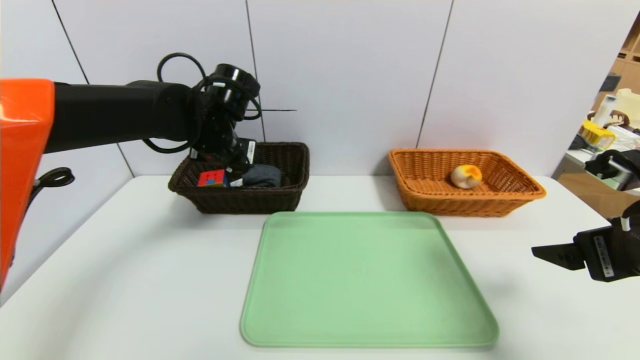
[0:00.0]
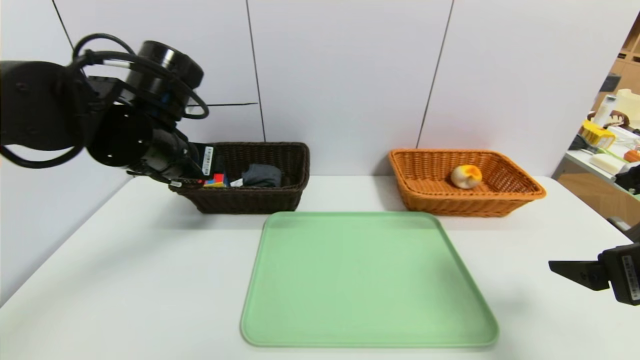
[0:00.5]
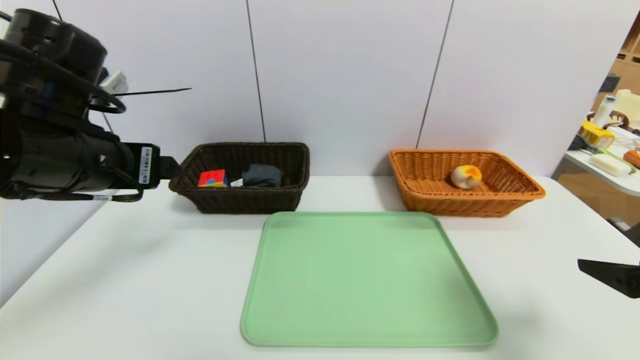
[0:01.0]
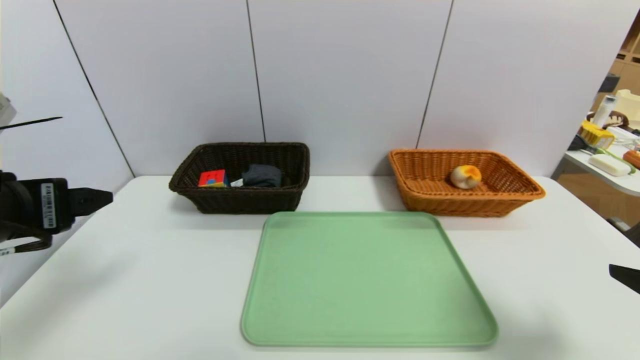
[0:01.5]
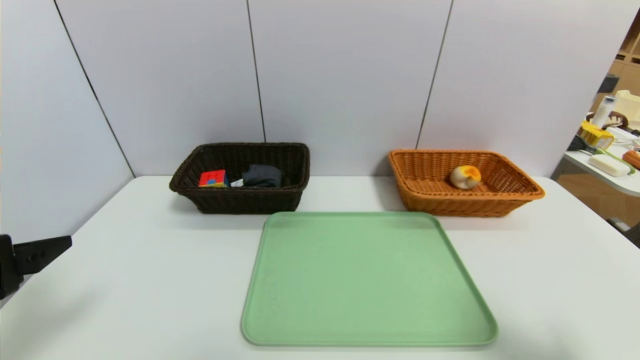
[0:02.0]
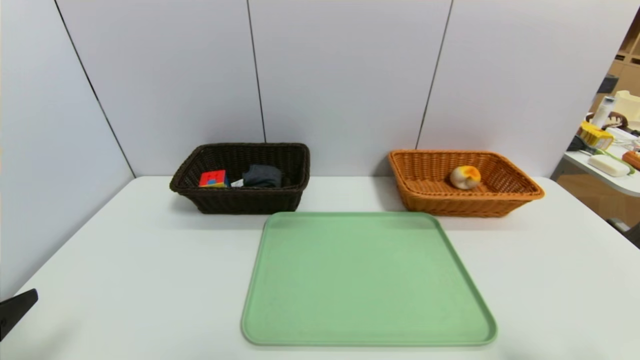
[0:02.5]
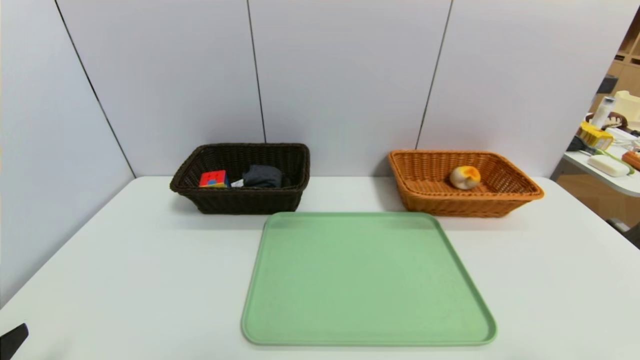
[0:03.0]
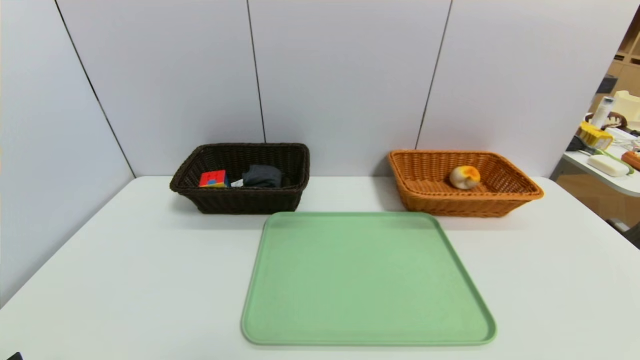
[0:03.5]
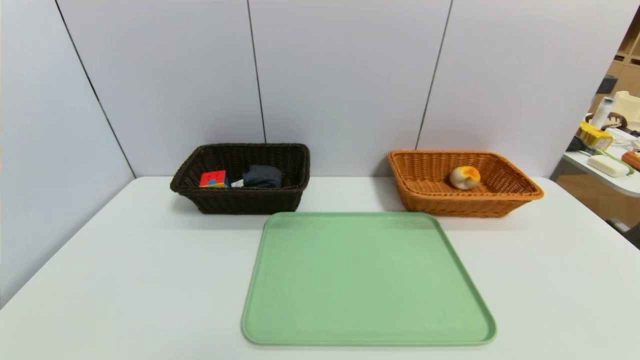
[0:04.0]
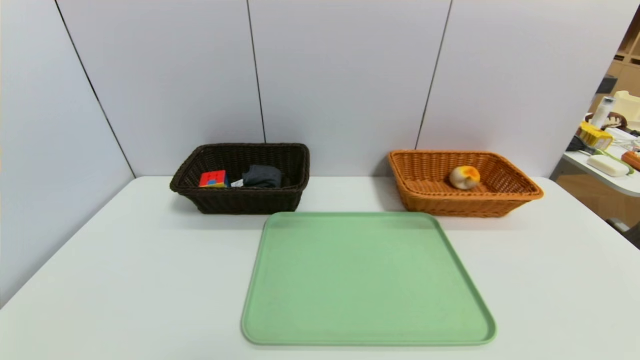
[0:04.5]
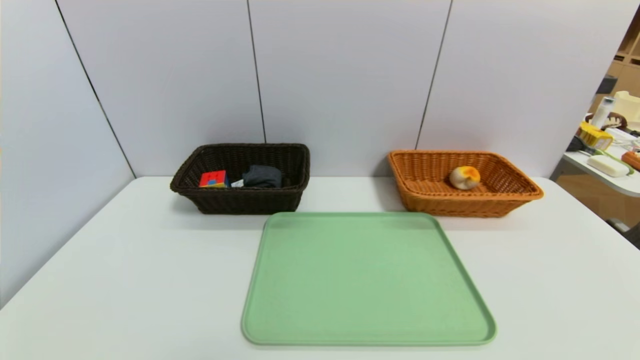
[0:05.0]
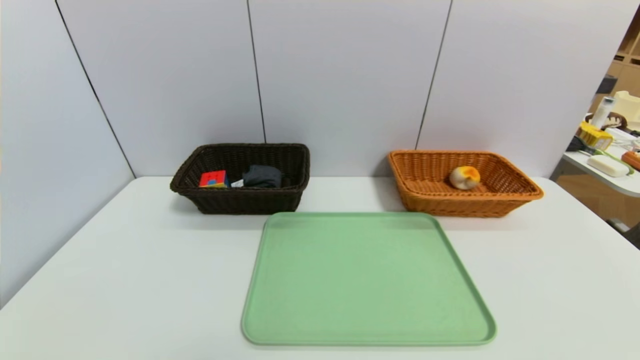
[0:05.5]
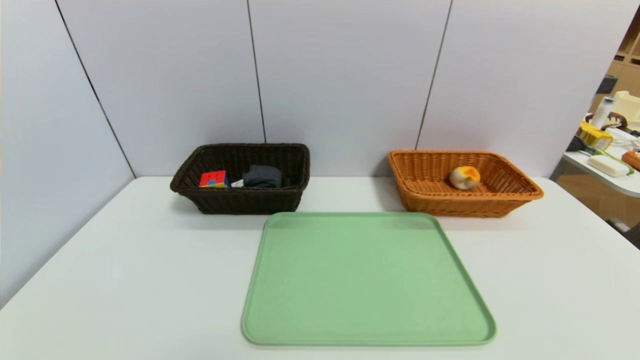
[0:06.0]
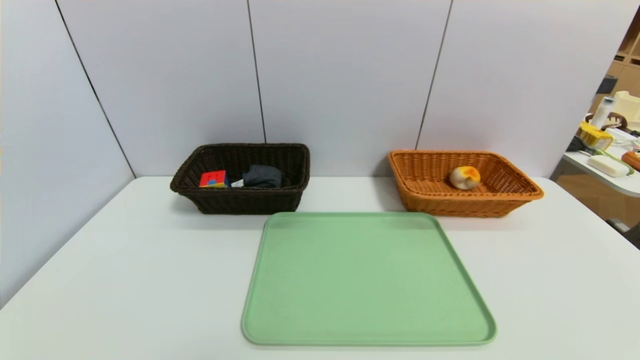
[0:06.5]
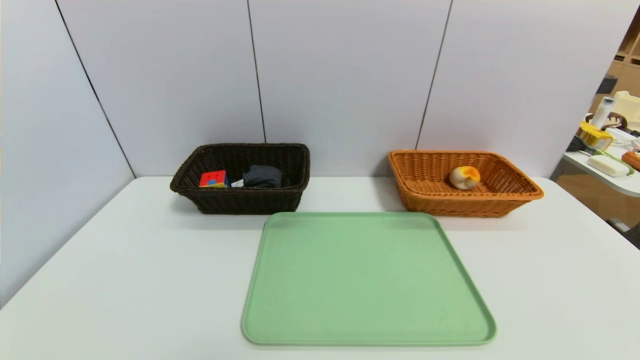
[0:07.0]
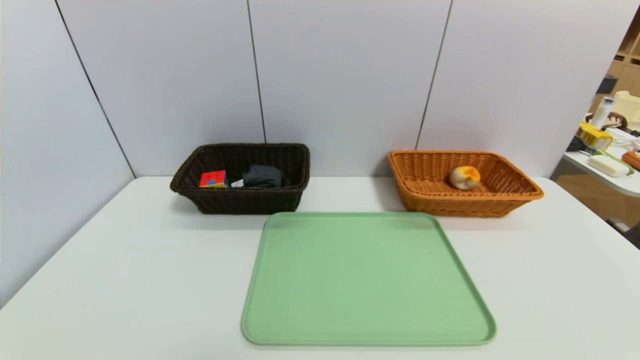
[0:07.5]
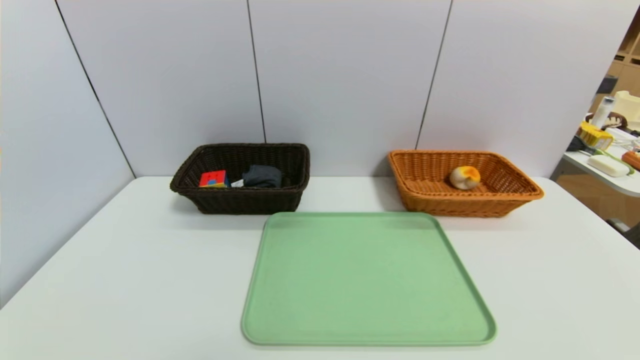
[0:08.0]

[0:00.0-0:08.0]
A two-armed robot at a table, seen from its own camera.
Task of the whole recording: place the food in the right basket with the right gripper, and place the non food items in the left basket with the left gripper.
0:00.0 to 0:02.0: The right gripper heads backward, covering about 10 cm, while the left gripper heads backward and to the left, covering some 30 cm.
0:02.0 to 0:04.0: Both grippers move backward and downward, roughly 15 cm.

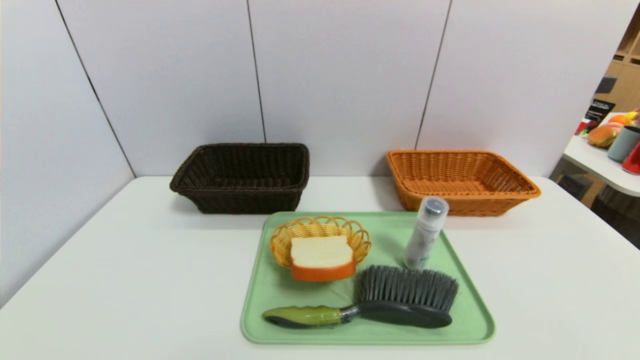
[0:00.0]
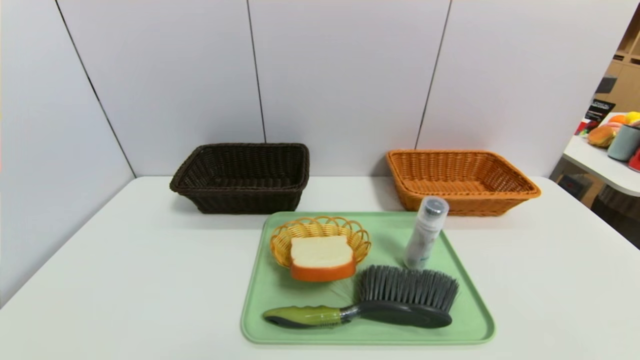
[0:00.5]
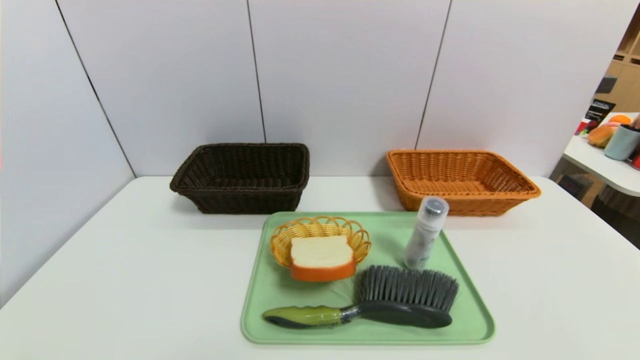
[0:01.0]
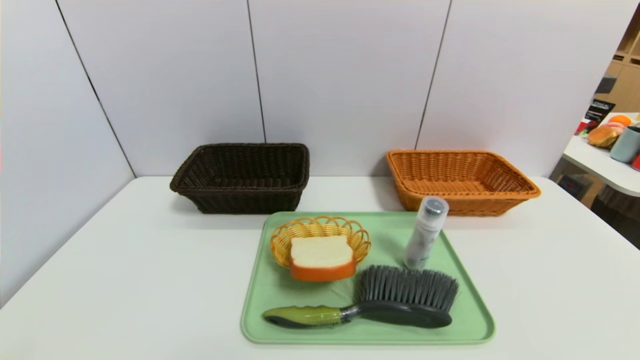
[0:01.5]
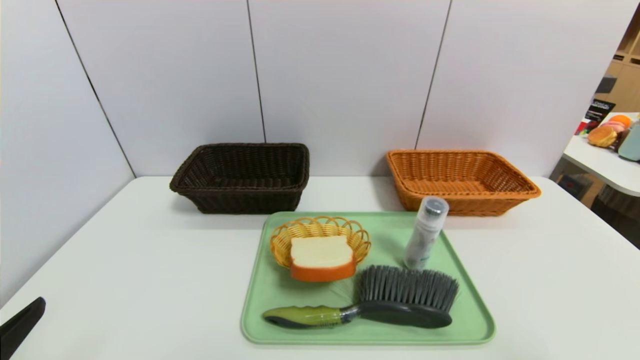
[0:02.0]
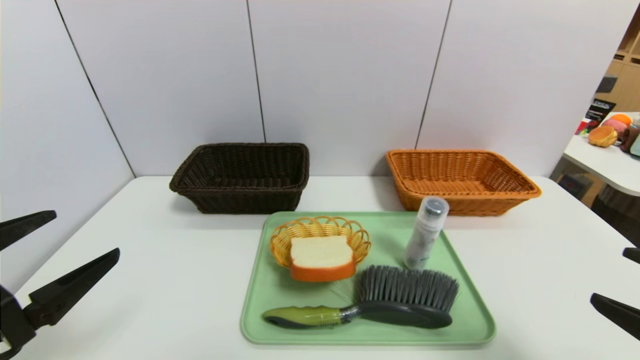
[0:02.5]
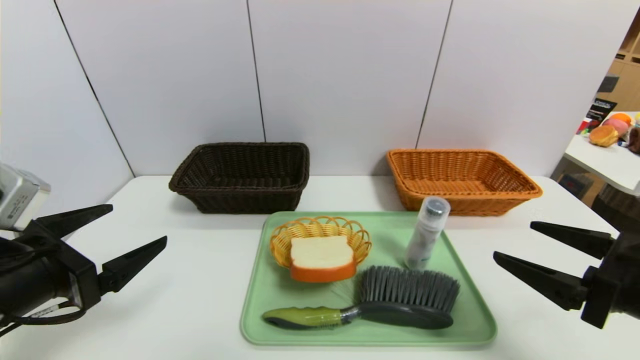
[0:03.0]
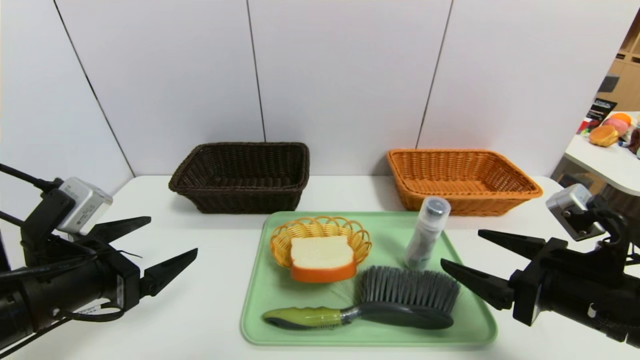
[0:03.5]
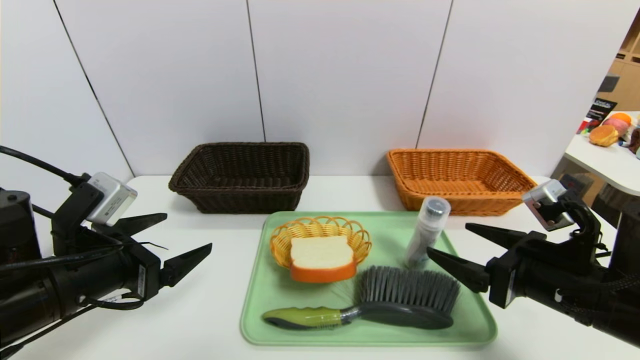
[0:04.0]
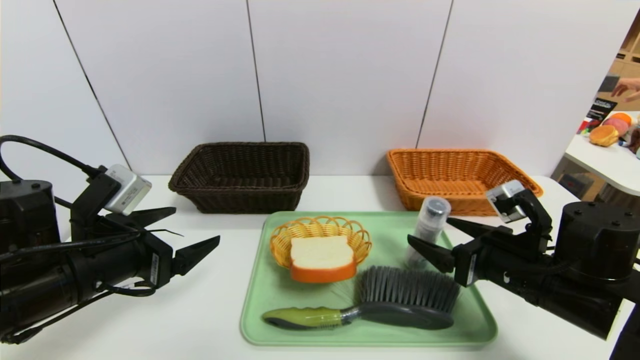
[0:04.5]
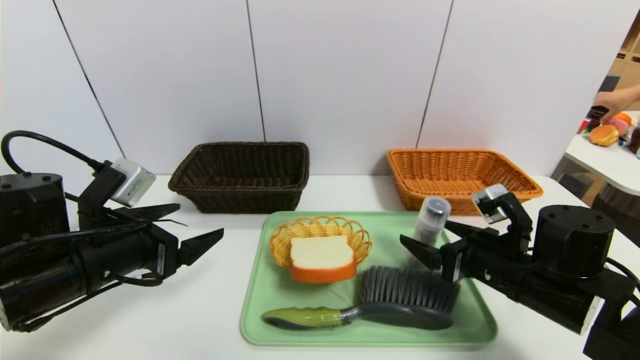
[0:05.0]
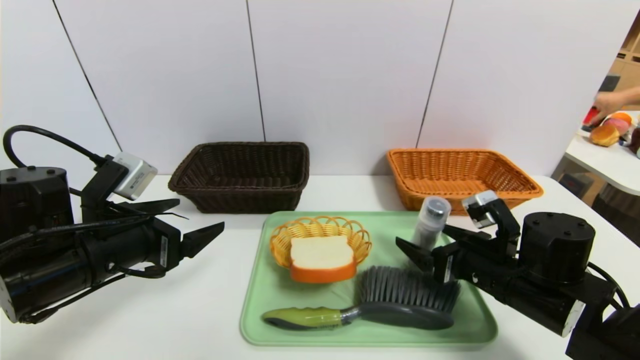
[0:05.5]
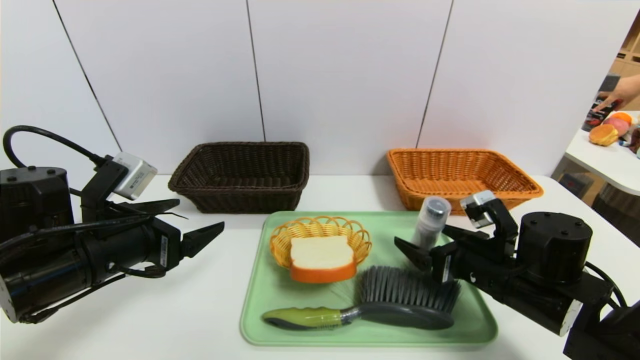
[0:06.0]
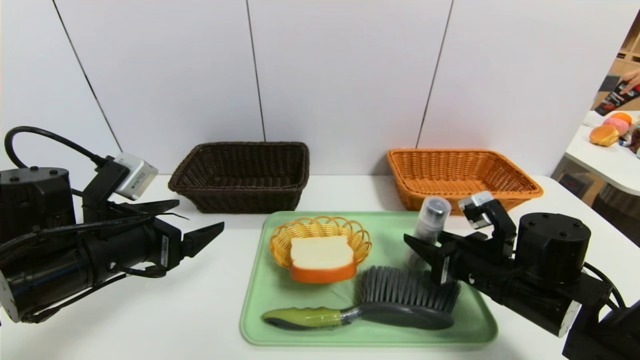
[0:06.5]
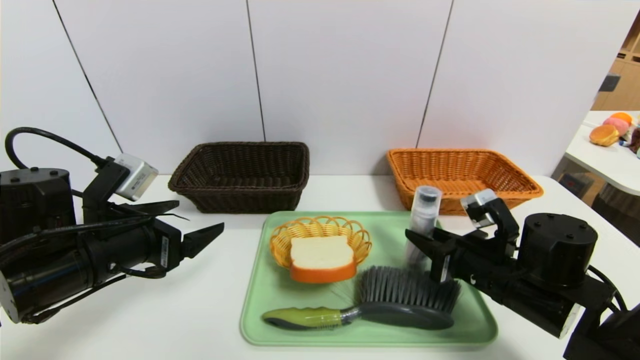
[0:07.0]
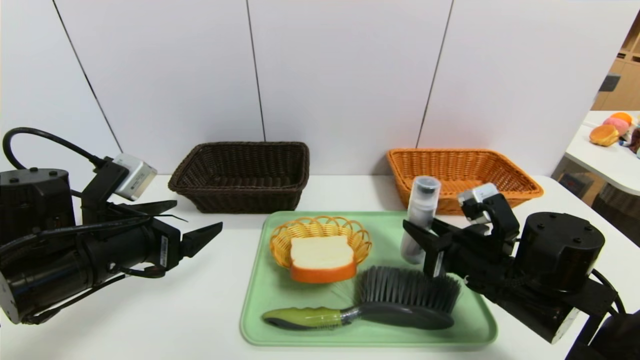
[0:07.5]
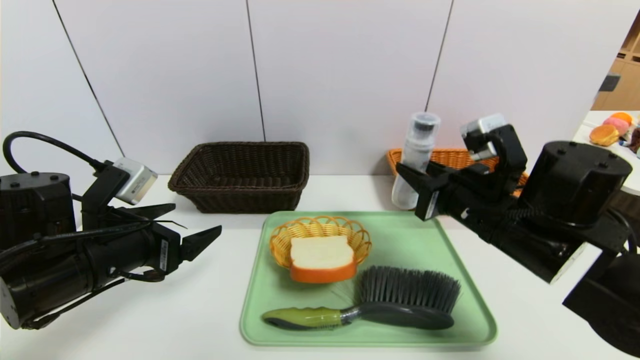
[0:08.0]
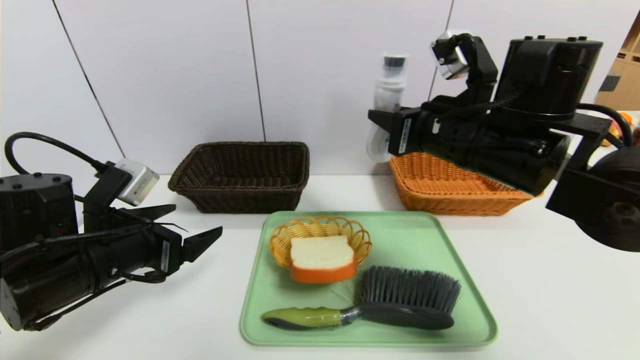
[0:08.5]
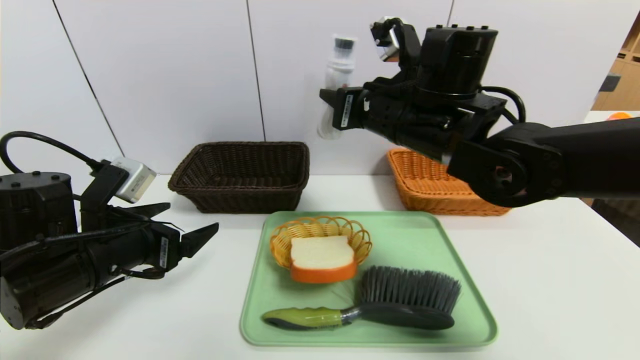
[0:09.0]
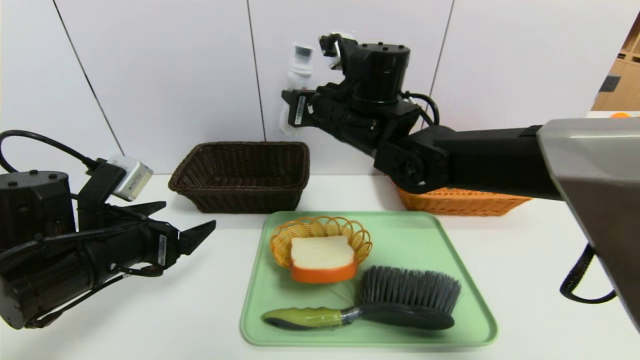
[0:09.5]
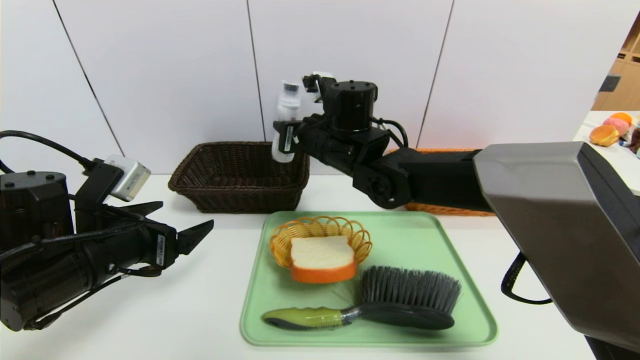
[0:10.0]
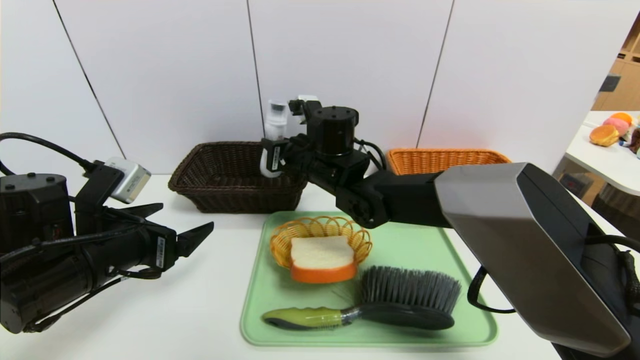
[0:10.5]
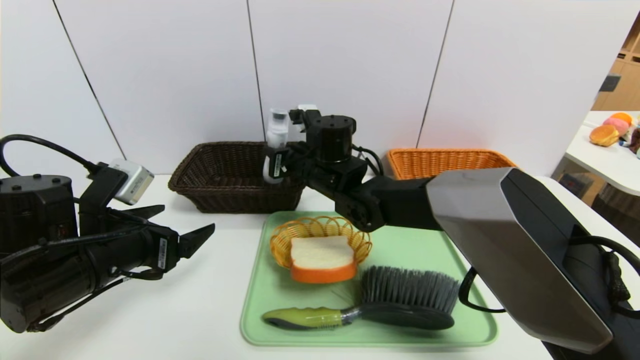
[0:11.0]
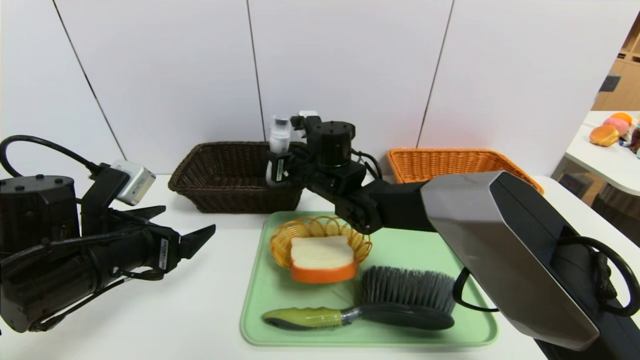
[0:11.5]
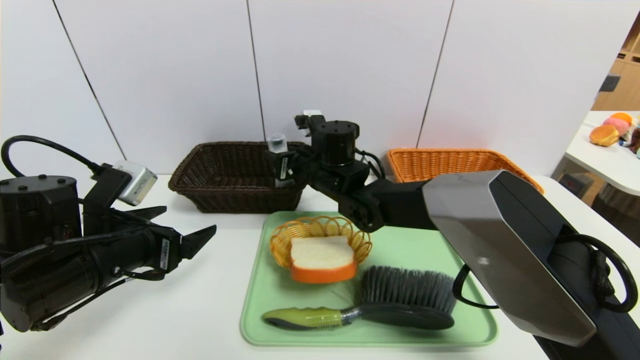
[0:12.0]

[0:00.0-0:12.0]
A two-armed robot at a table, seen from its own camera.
Task of the whole recording: place the food in the right basket with the right gripper, and place the non food items in the left basket with the left gripper.
0:00.0 to 0:02.0: The two grippers go approximately 15 cm upward.
0:02.0 to 0:04.0: The left gripper heads forward, covering about 15 cm. Meanwhile the right gripper travels forward, downward and to the left by some 20 cm.
0:04.0 to 0:06.0: The right gripper heads forward and downward, covering approximately 5 cm.
0:06.0 to 0:08.0: The right gripper is displaced upward by some 10 cm, and closes.
0:08.0 to 0:10.0: The right gripper travels to the left and forward by about 20 cm.
0:10.0 to 0:12.0: The right gripper heads downward, covering some 5 cm, and opens.
